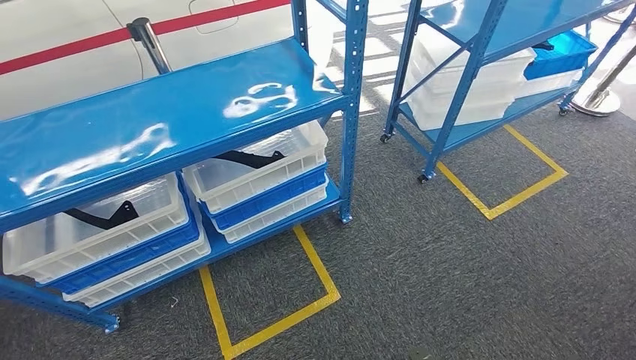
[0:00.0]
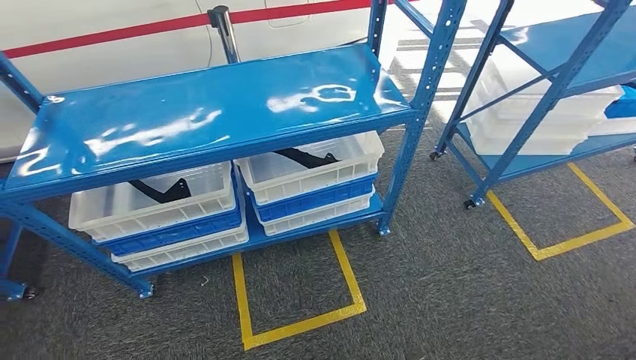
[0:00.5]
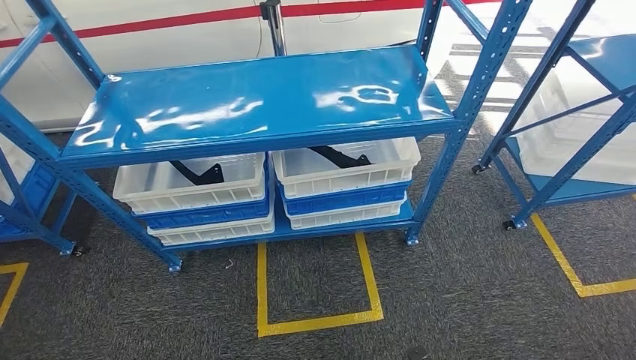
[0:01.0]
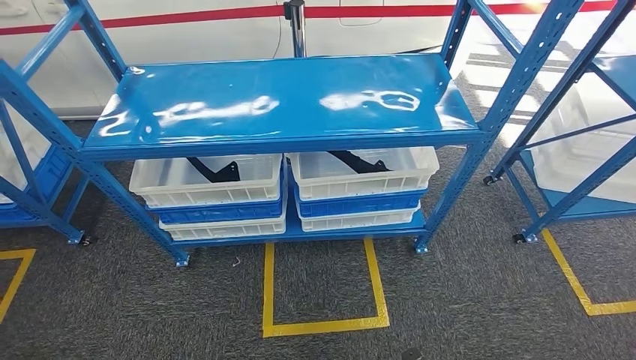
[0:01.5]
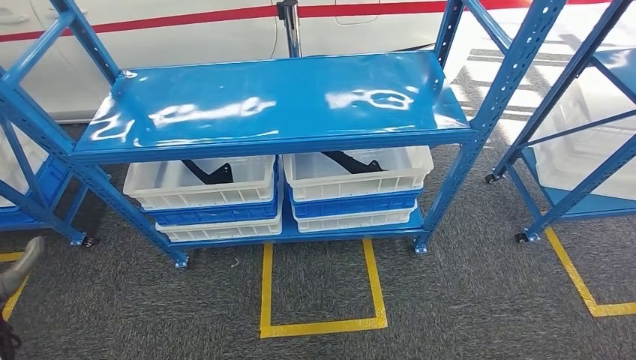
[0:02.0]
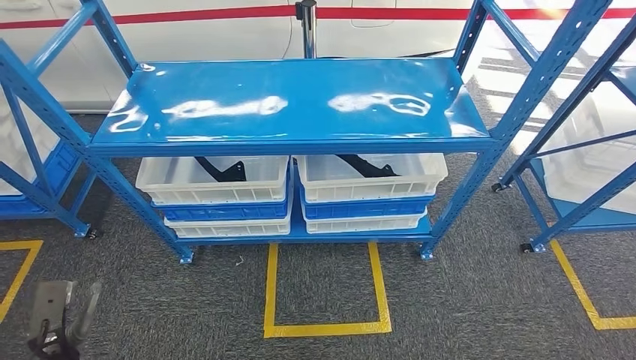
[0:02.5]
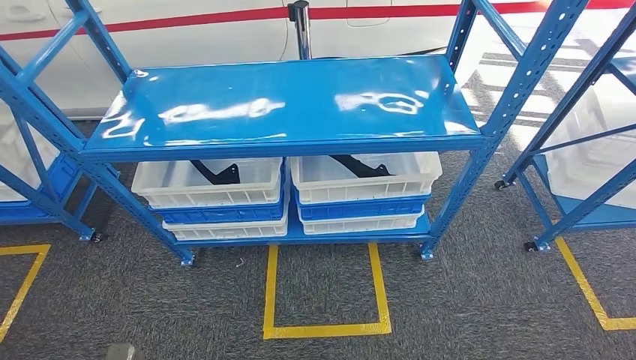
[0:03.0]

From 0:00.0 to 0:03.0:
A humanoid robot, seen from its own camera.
Step, from 0:00.0 to 0:02.5: Return to the initial position at the shelf.
